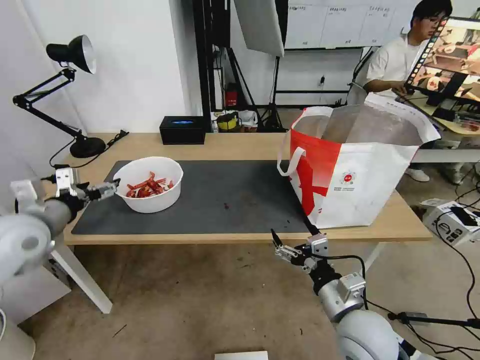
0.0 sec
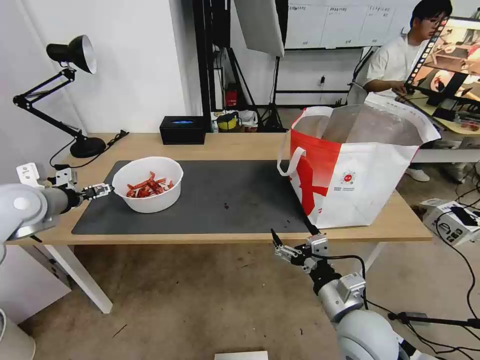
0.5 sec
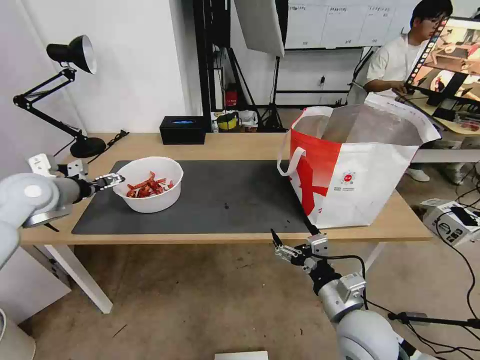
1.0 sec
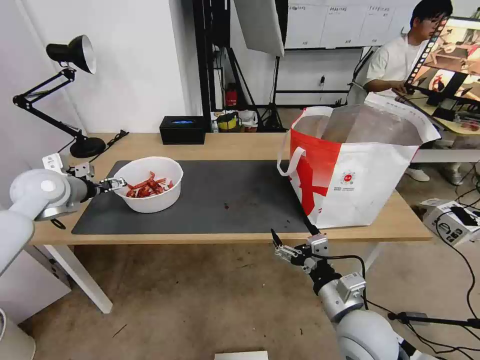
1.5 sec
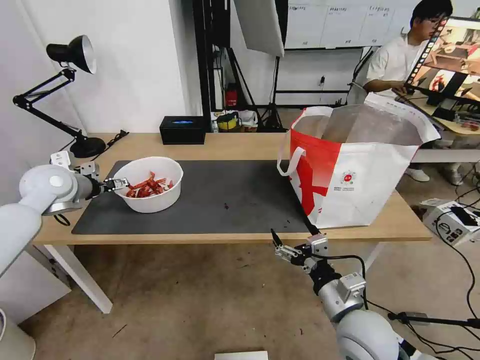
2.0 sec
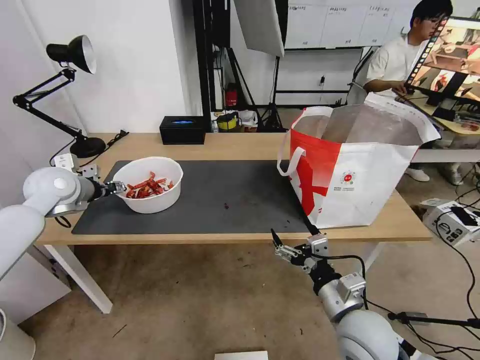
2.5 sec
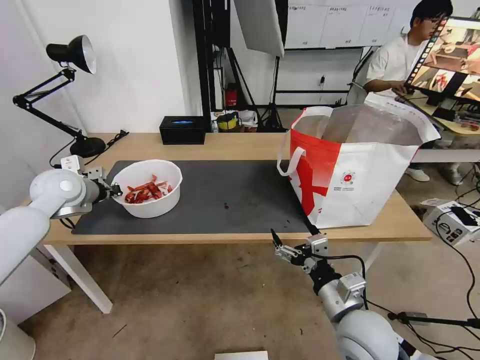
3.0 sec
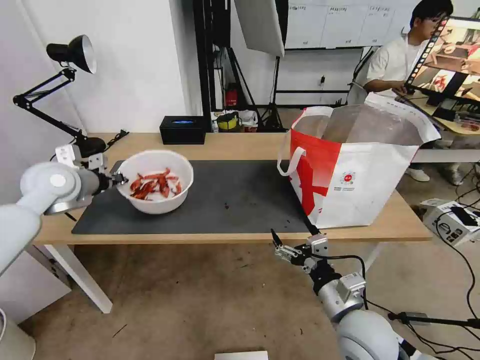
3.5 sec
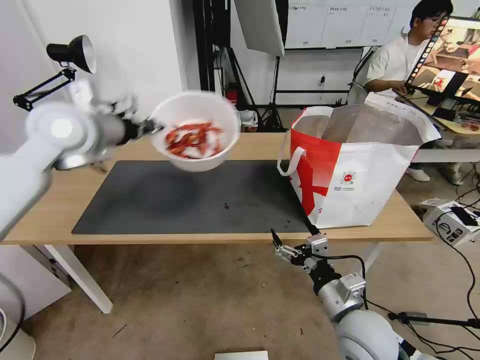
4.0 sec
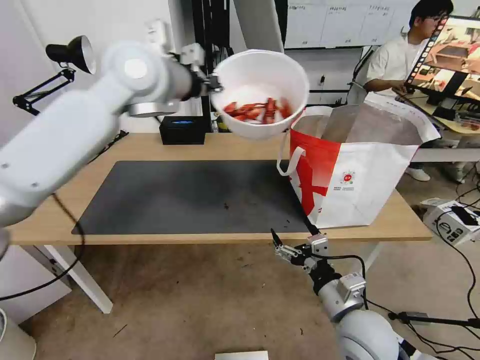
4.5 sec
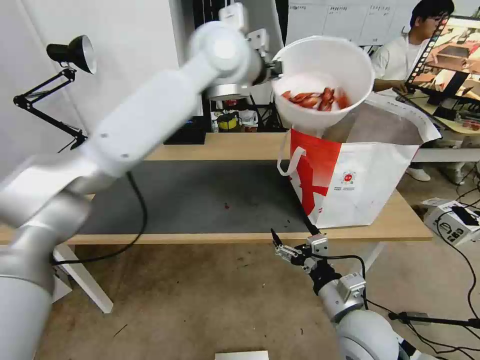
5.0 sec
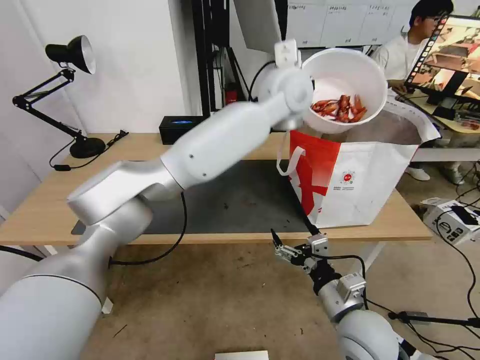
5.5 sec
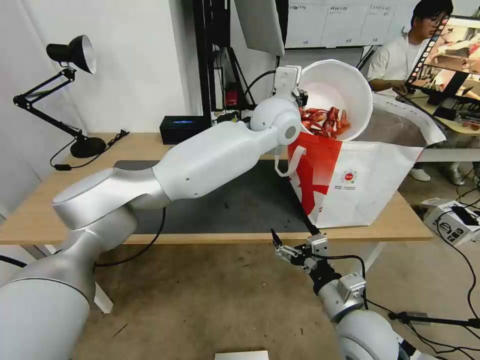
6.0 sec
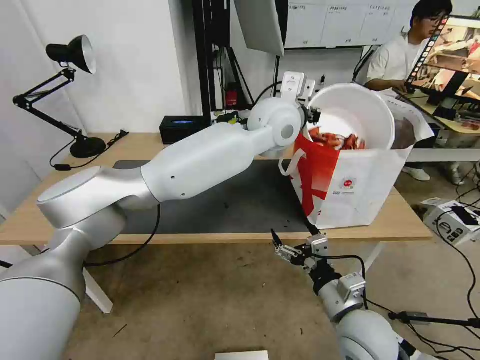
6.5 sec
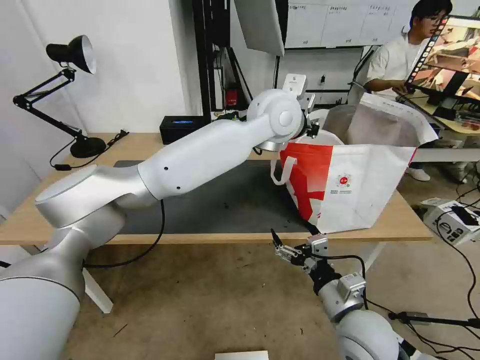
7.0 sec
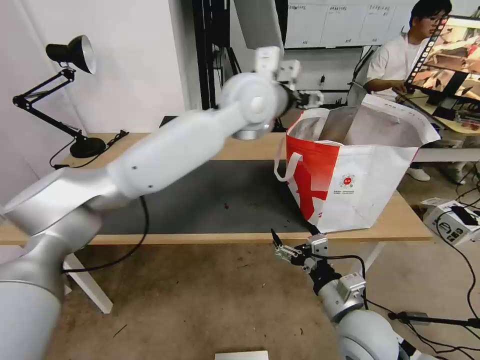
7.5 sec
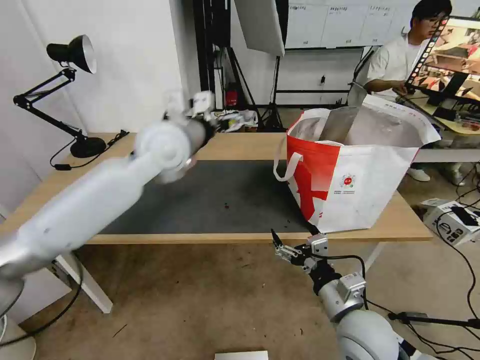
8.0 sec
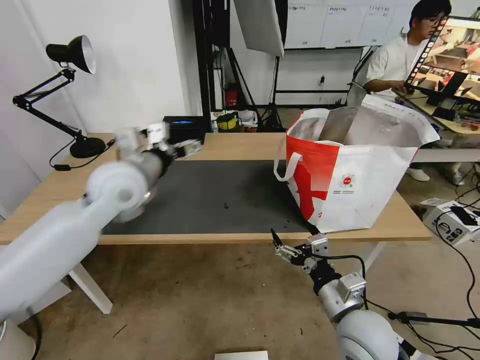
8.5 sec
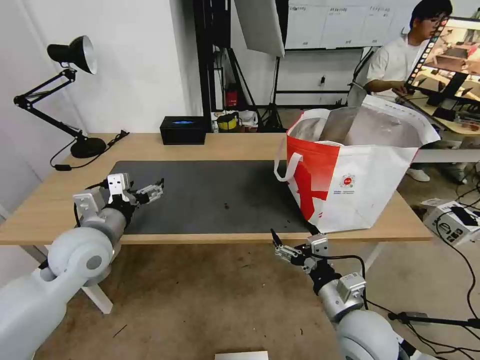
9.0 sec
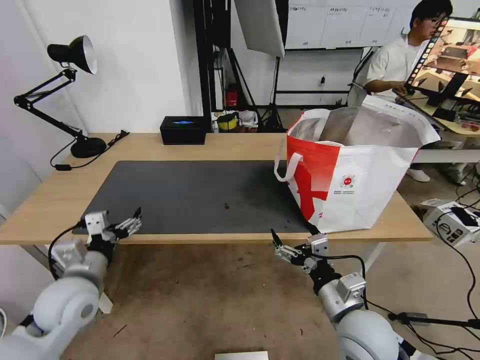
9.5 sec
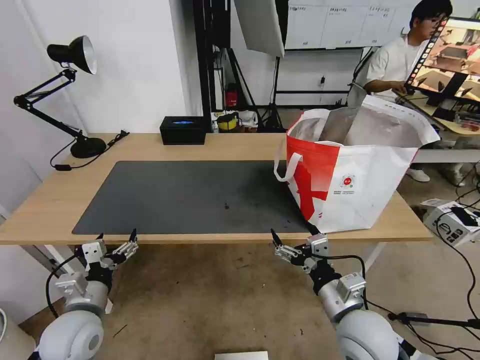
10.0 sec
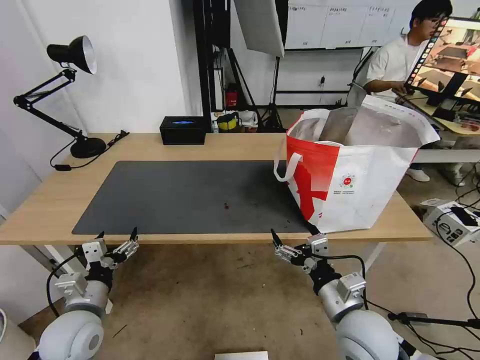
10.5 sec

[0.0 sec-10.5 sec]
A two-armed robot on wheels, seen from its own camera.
Task of the whole recording: Pick up the trash from the table and place it into the takeout bag.
0.0 sec to 2.0 sec: The left gripper heads forward, covering roughly 15 cm.
2.0 sec to 4.0 sec: The left gripper travels upward and to the right by roughly 20 cm, and closes.
4.0 sec to 6.5 sec: The left gripper travels to the right by roughly 35 cm.
6.5 sec to 8.5 sec: The left gripper heads to the left, covering about 30 cm, and opens.
8.5 sec to 10.5 sec: The left gripper heads downward, backward and to the left, covering about 30 cm.

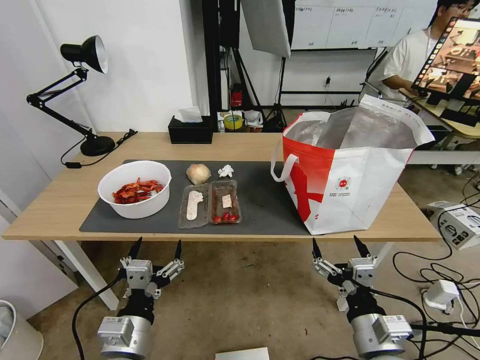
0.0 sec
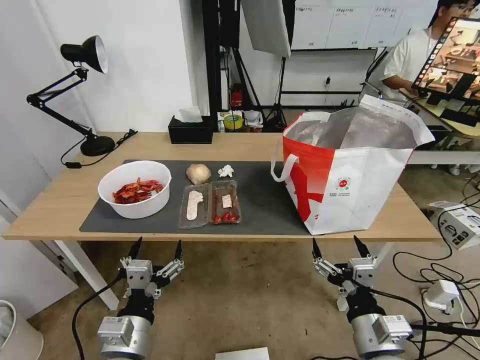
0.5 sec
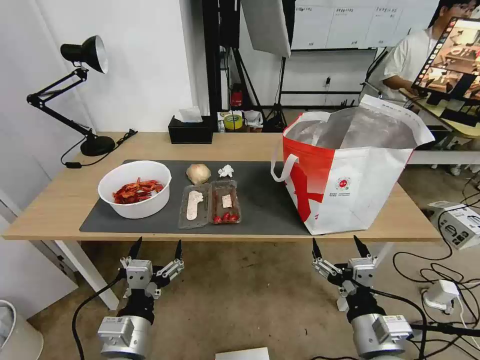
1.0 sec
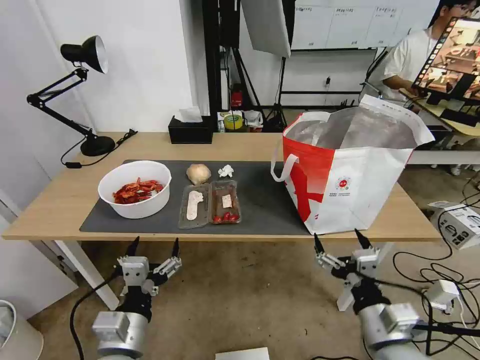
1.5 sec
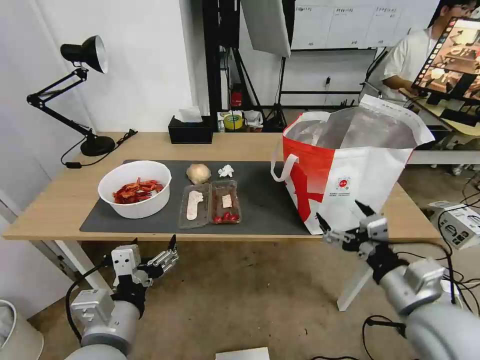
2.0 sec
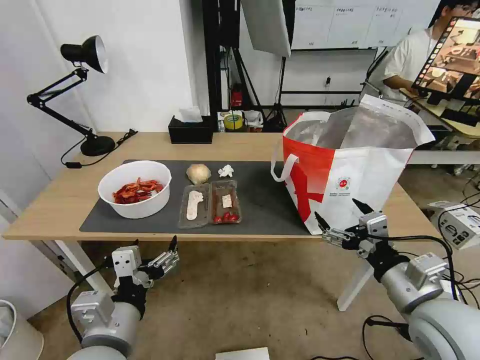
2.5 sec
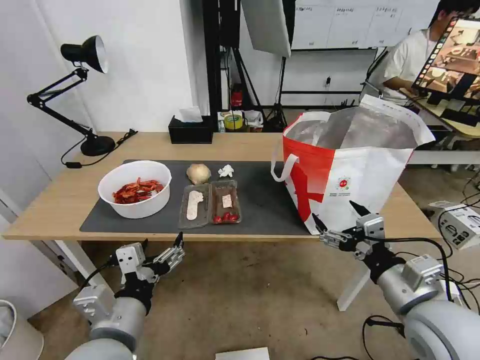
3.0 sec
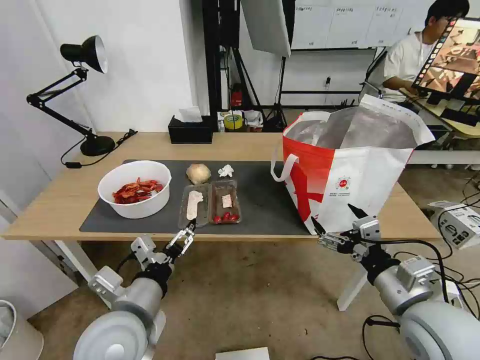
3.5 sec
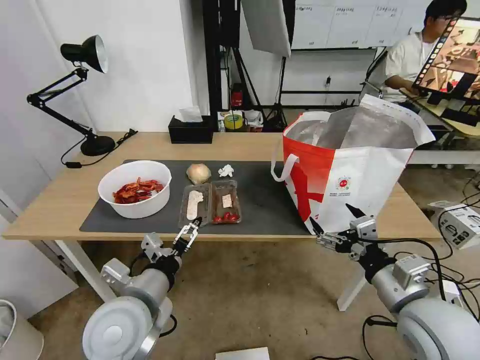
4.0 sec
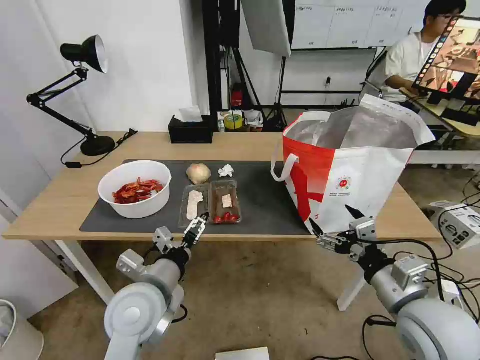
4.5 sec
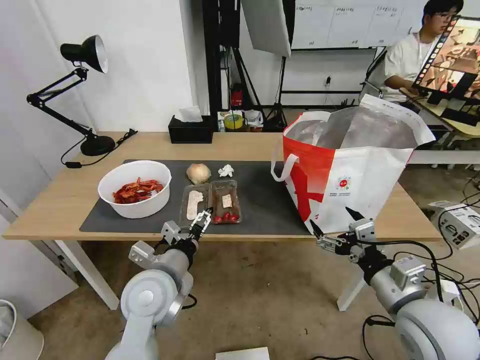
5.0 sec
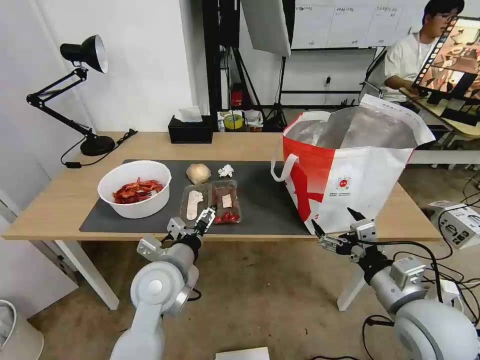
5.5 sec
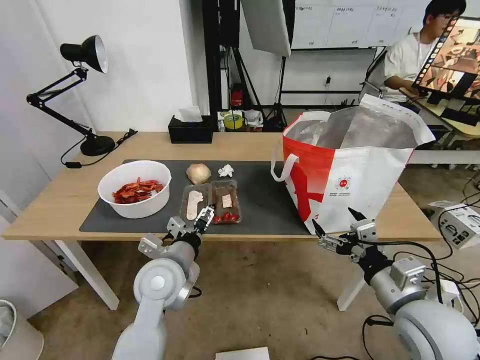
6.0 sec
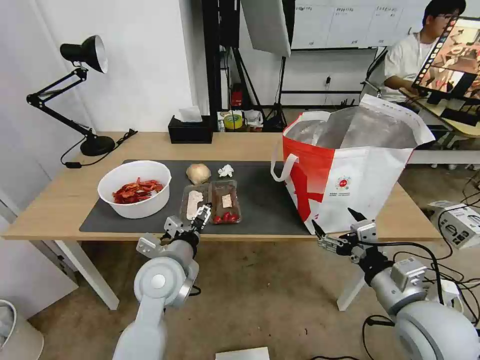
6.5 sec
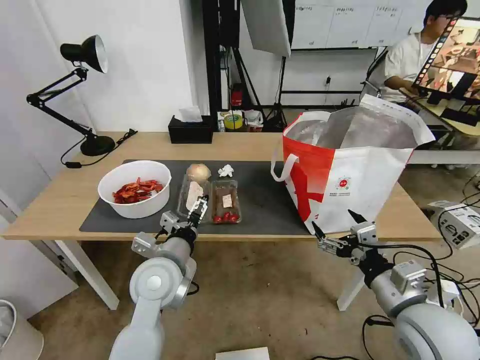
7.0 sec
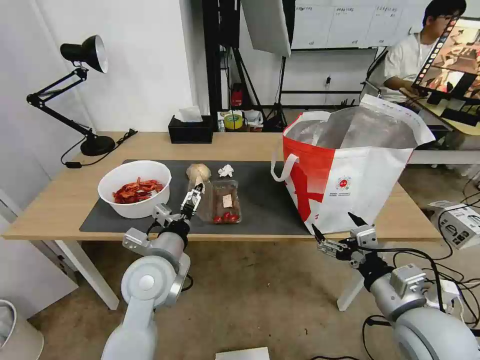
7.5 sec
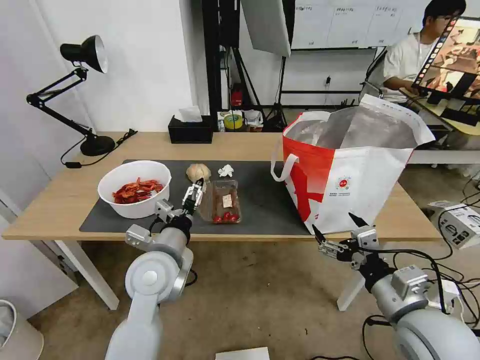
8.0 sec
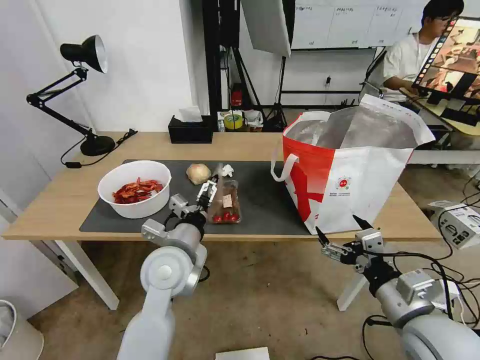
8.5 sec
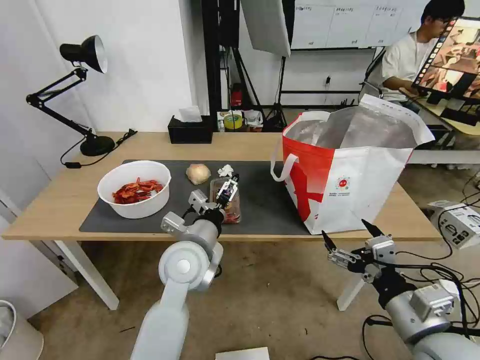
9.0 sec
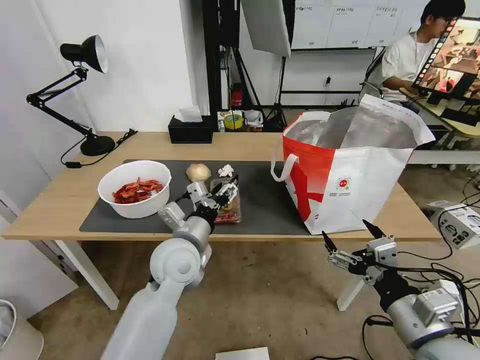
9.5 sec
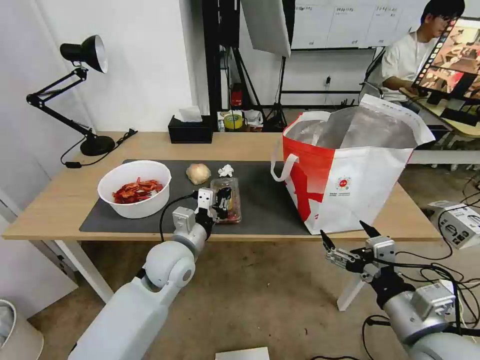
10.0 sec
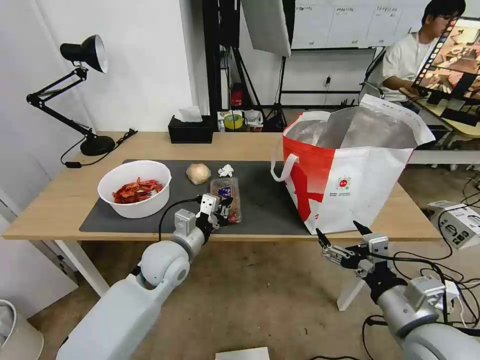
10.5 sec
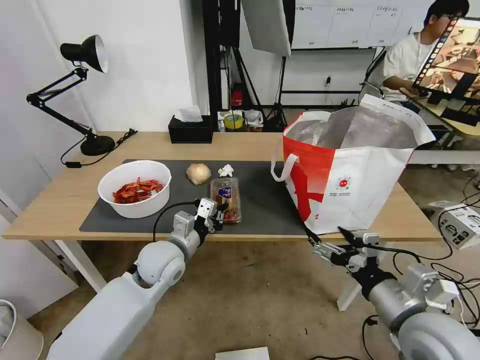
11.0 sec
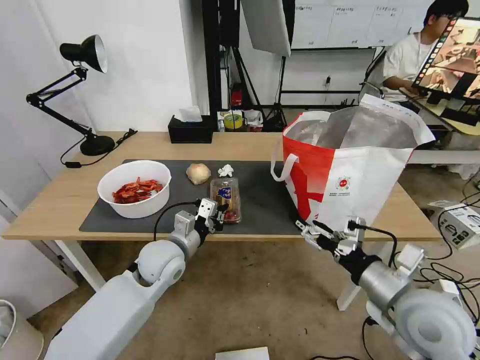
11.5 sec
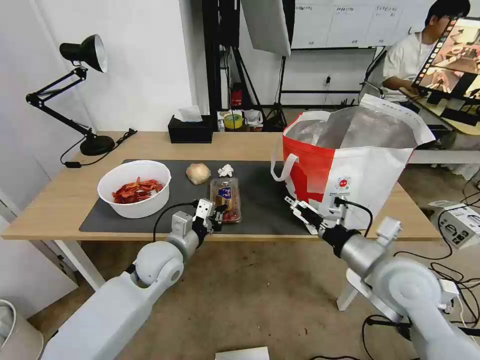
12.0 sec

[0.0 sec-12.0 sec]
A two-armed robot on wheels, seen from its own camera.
Task of the whole recording: Pick up the trash from the table and place it into the takeout bag.
2.0 sec to 4.0 sec: The left gripper is displaced forward by some 5 cm.
4.0 sec to 6.0 sec: The left gripper shifts approximately 10 cm forward.
6.0 sec to 8.0 sec: The grippers move only a little.
8.0 sec to 10.0 sec: The left gripper shifts by roughly 5 cm, and closes up.
10.0 sec to 12.0 sec: The right gripper moves forward, approximately 10 cm.

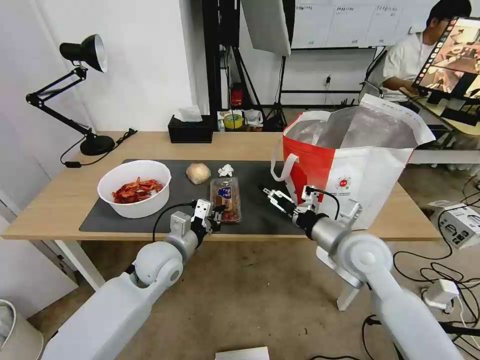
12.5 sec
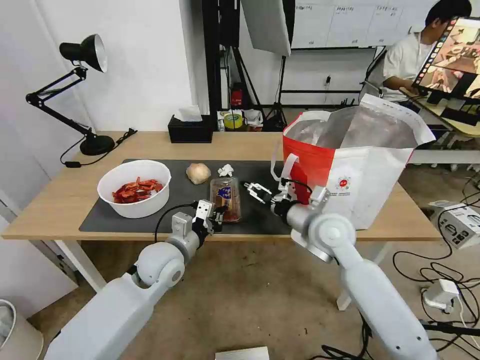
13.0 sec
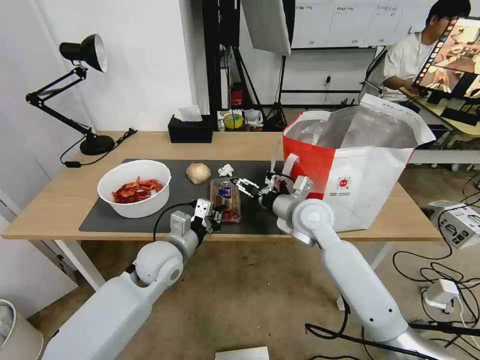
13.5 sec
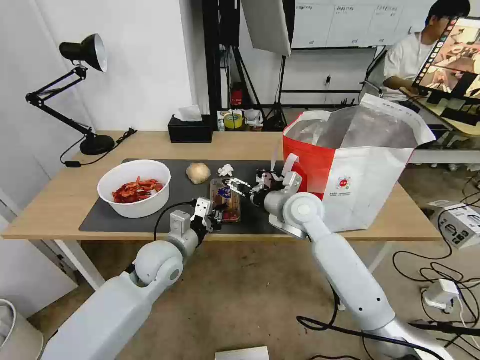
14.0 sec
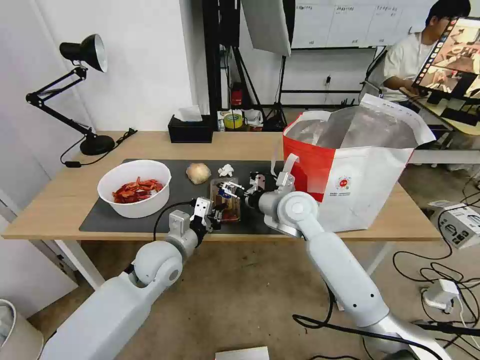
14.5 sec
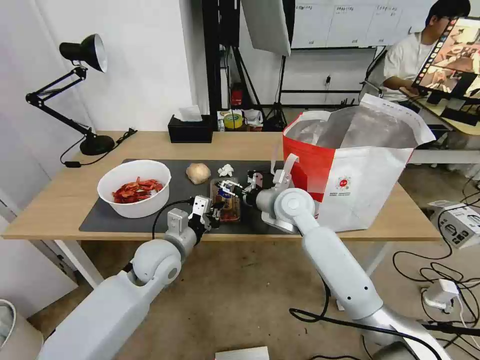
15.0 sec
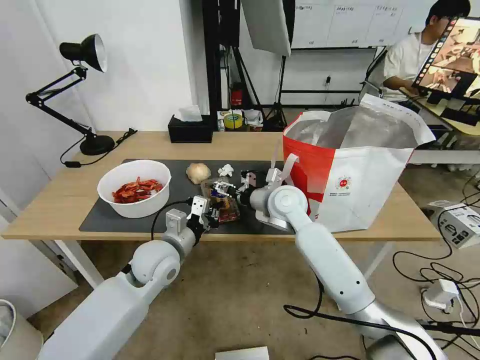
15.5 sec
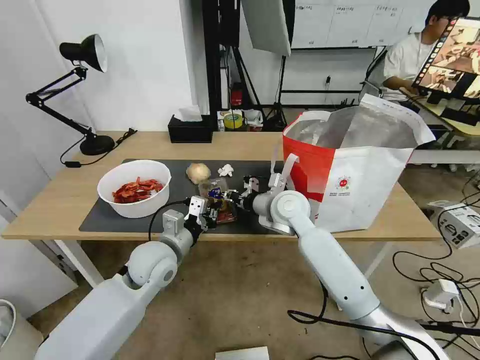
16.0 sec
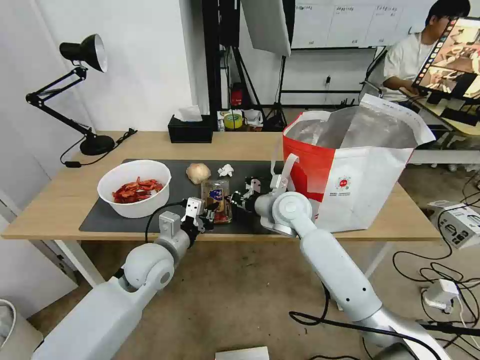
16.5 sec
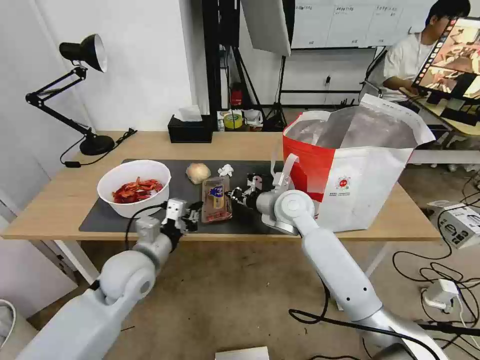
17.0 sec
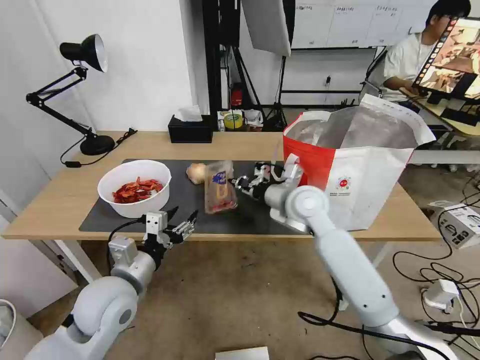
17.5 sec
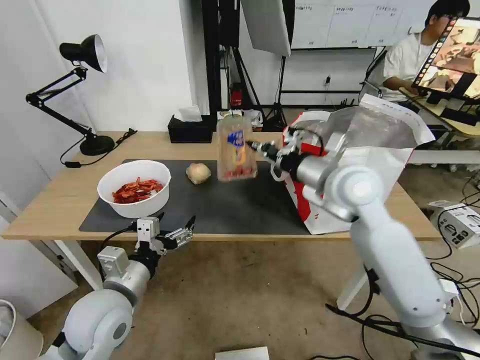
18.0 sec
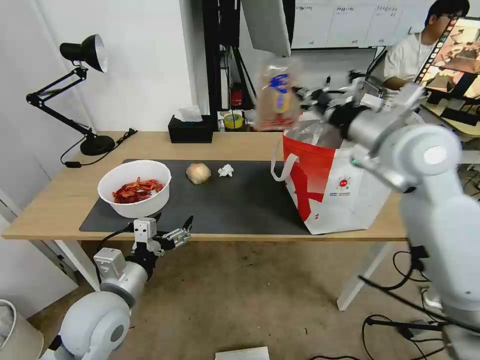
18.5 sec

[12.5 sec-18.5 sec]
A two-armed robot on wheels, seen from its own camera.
Task of the whole recording: Pick up the trash from the table and place it into the takeout bag.
12.5 sec to 14.5 sec: The right gripper travels forward and to the left by about 15 cm.
14.5 sec to 16.5 sec: The right gripper closes up.
16.5 sec to 18.5 sec: The right gripper goes about 25 cm upward and to the right. The left gripper travels backward and to the left by approximately 10 cm, and opens its fingers.
